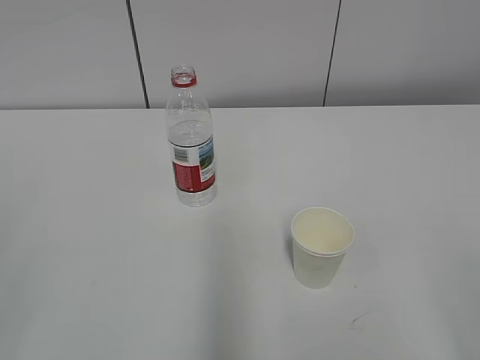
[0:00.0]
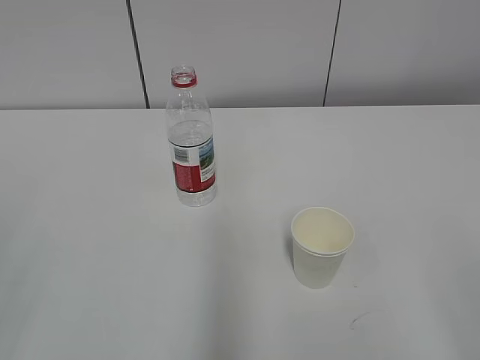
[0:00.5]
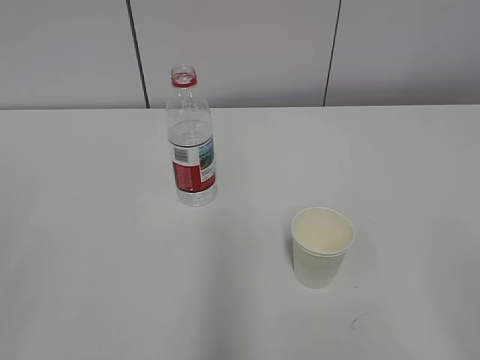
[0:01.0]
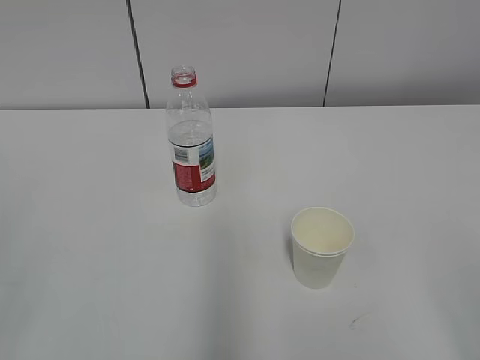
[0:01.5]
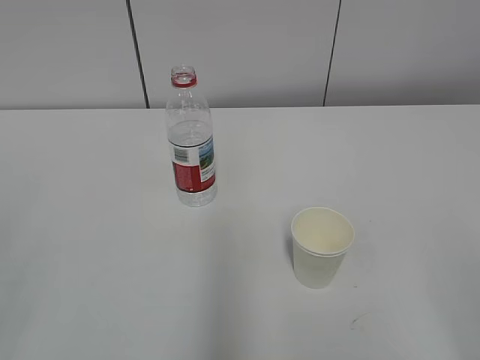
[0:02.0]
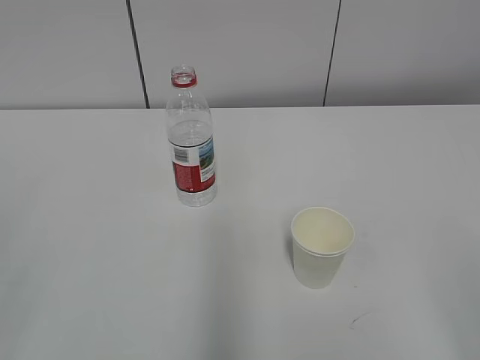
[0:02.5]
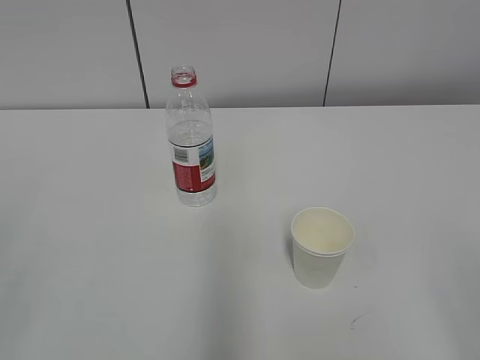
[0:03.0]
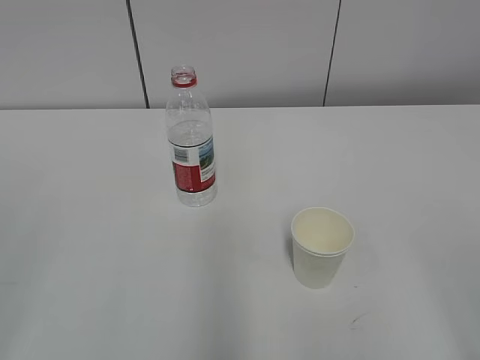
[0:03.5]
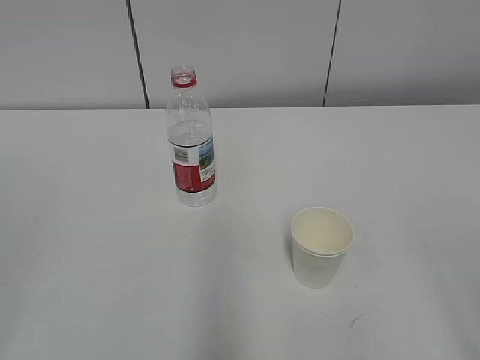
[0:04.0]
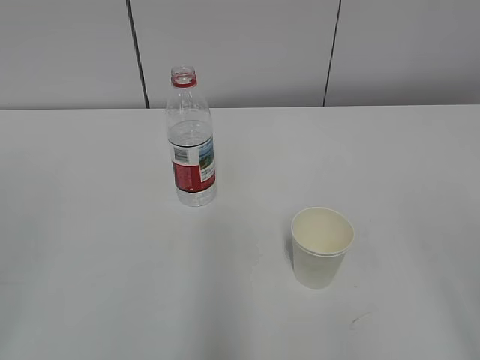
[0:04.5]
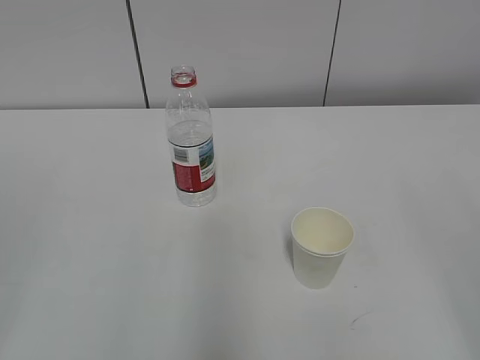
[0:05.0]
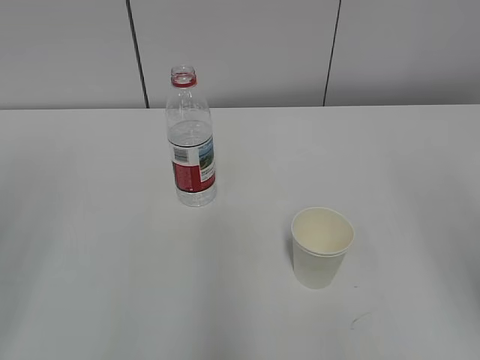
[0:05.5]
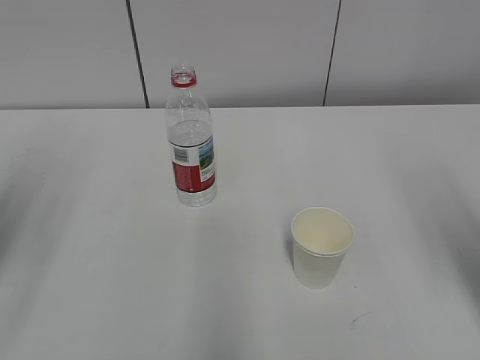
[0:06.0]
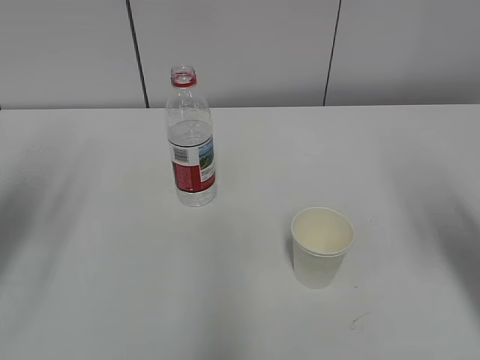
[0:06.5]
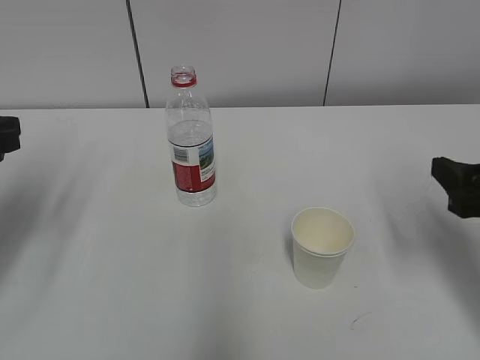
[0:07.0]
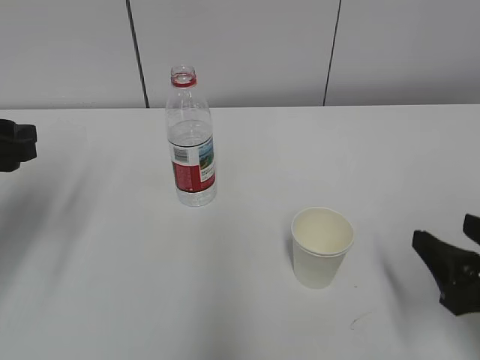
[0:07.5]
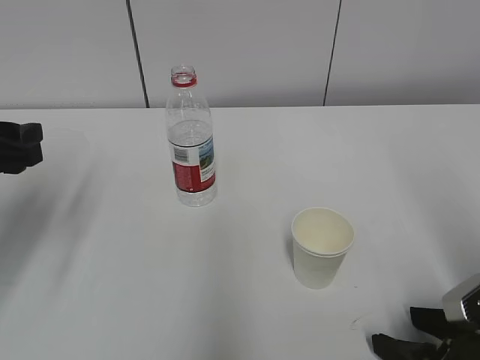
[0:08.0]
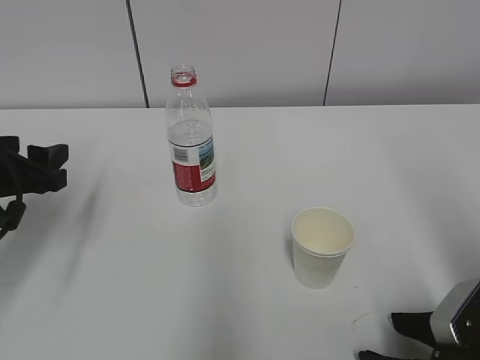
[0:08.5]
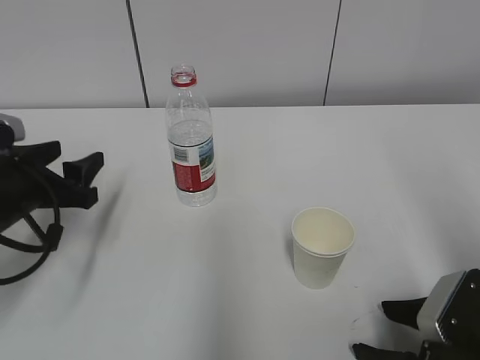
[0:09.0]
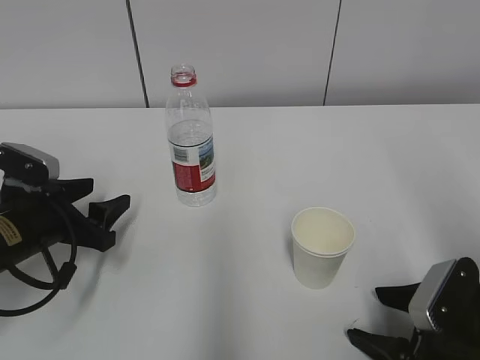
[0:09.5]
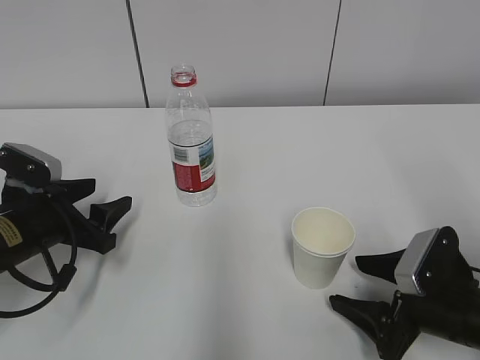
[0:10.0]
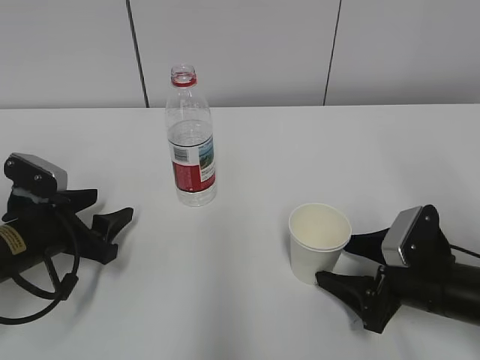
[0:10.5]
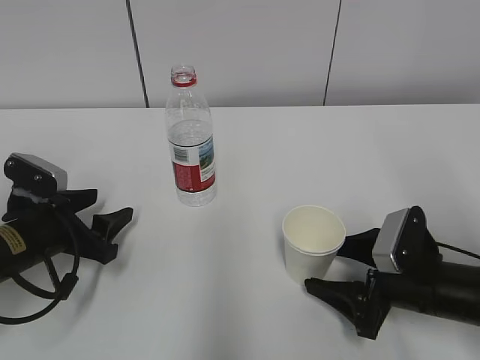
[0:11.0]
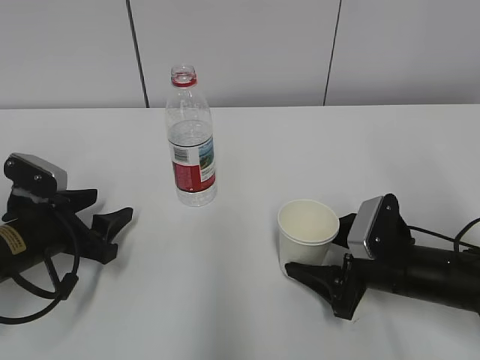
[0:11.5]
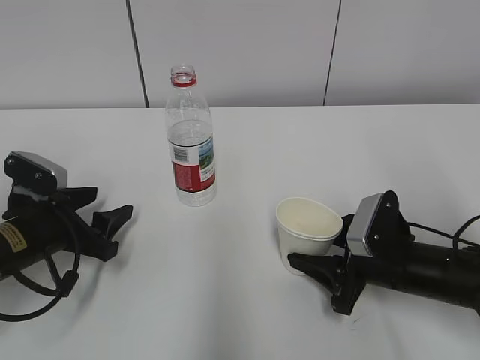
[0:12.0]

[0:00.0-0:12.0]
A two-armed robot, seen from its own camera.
Step, 0:00.0 to 0:09.5: Grab the paper cup with the right hand.
0:04.0 to 0:06.0: Both grippers move forward, roughly 15 cm.
0:06.0 to 0:08.0: The left gripper goes roughly 15 cm downward and forward. Meanwhile the right gripper moves downward, some 20 cm.
0:08.0 to 0:10.0: The right gripper moves forward, approximately 5 cm; the left gripper travels downward by some 10 cm.
0:10.0 to 0:12.0: The right gripper goes about 5 cm forward, and closes.

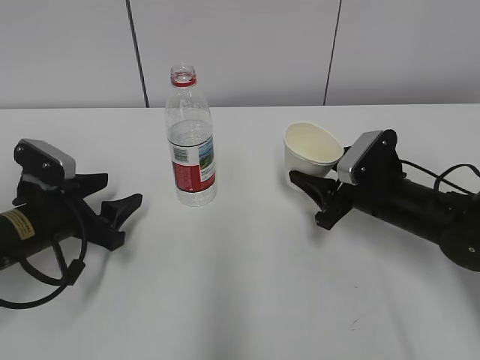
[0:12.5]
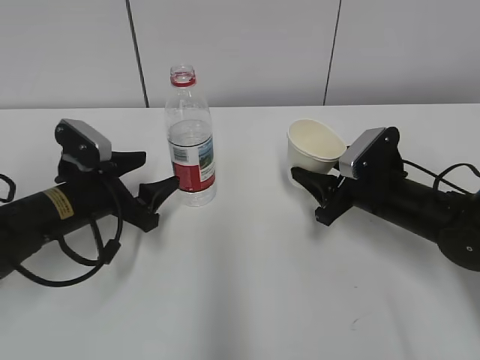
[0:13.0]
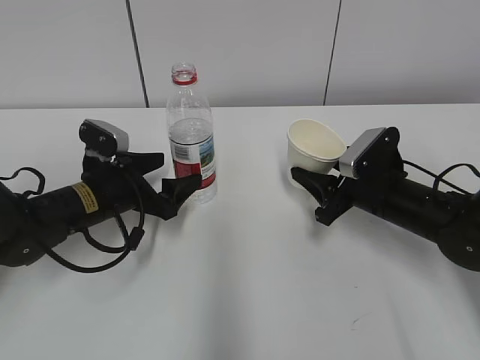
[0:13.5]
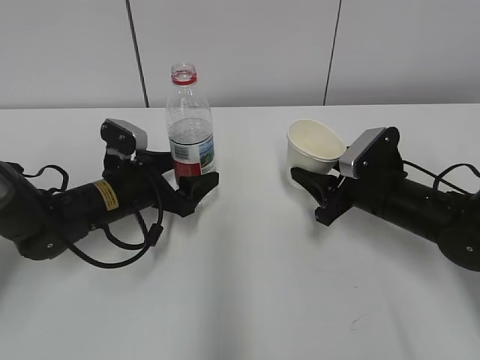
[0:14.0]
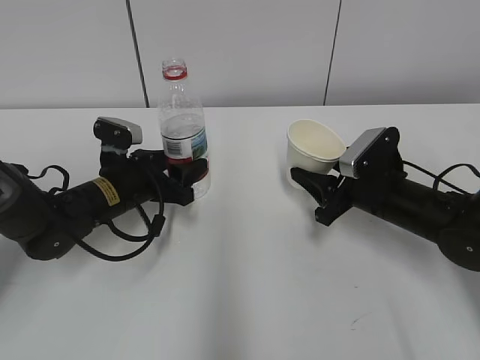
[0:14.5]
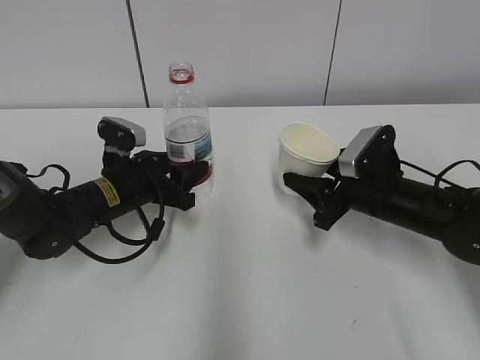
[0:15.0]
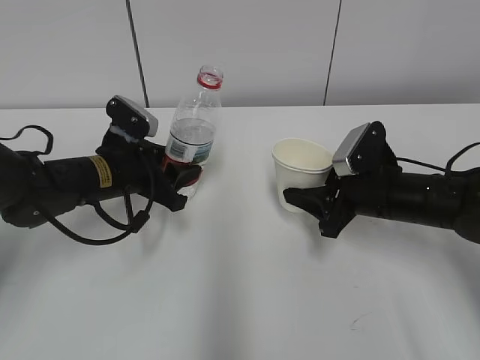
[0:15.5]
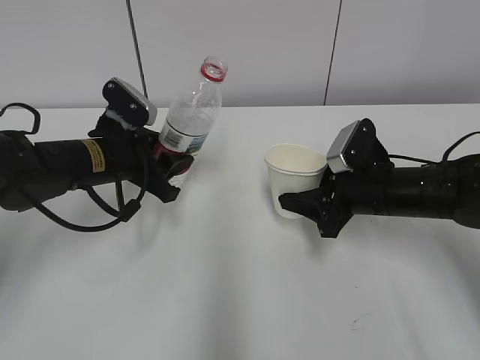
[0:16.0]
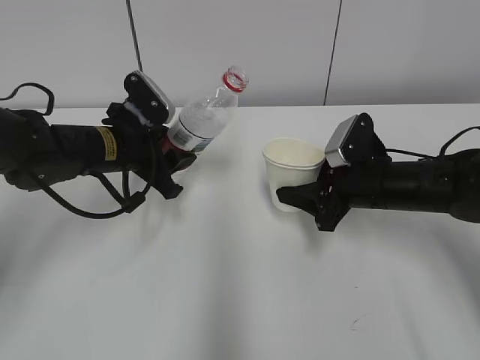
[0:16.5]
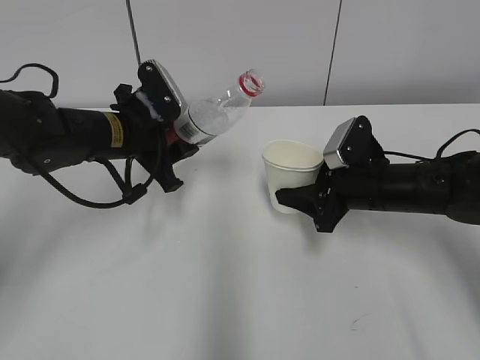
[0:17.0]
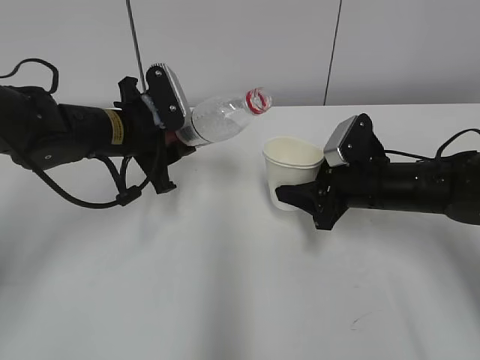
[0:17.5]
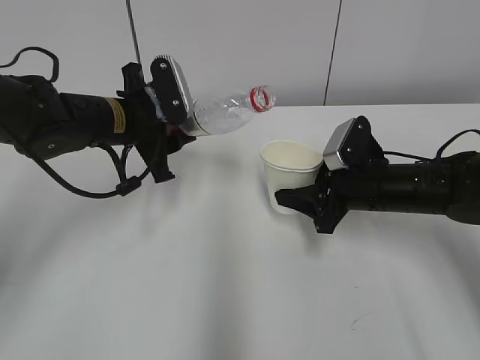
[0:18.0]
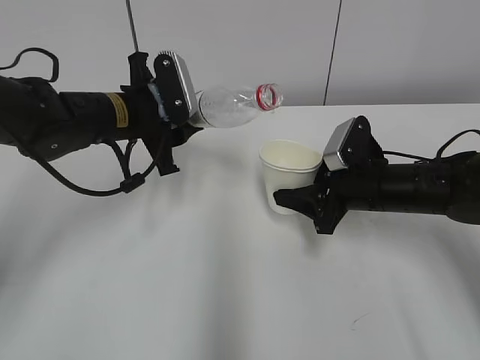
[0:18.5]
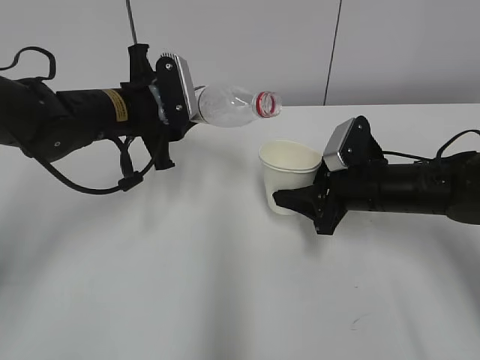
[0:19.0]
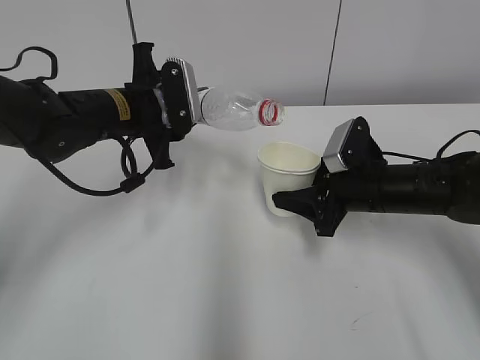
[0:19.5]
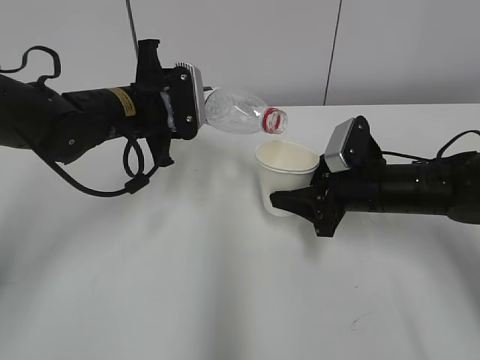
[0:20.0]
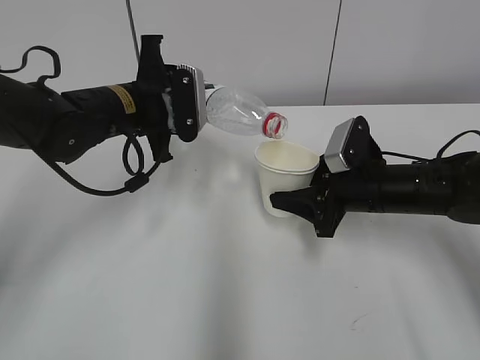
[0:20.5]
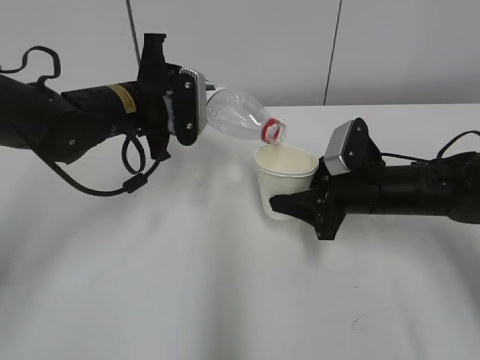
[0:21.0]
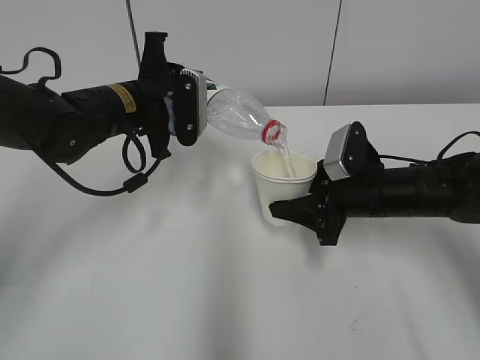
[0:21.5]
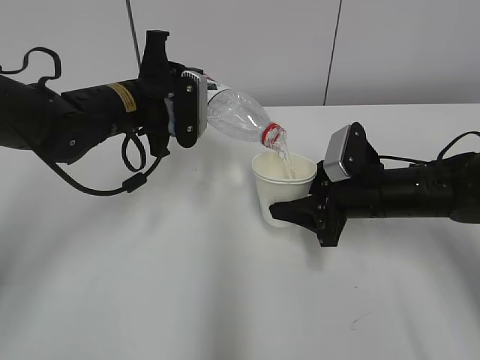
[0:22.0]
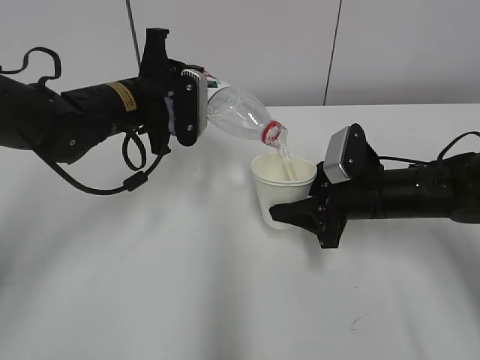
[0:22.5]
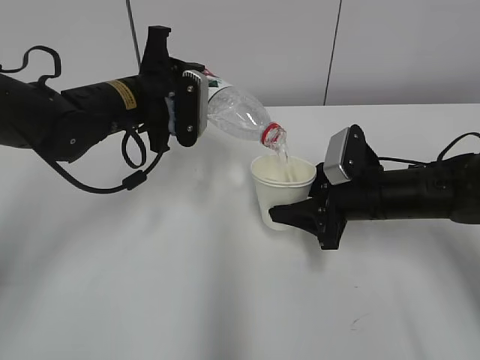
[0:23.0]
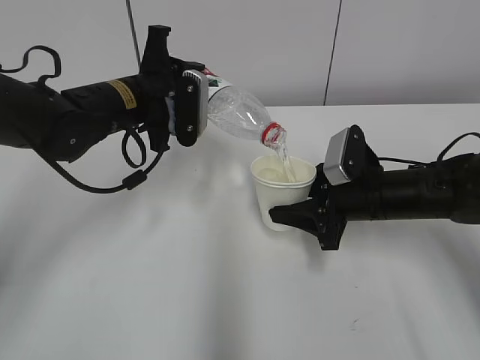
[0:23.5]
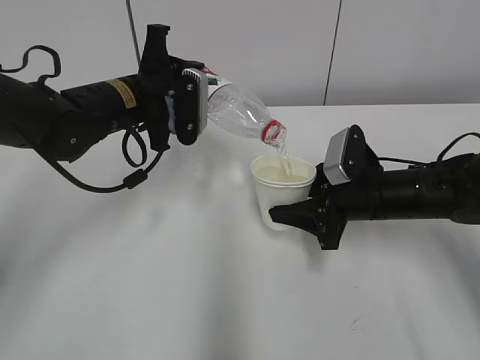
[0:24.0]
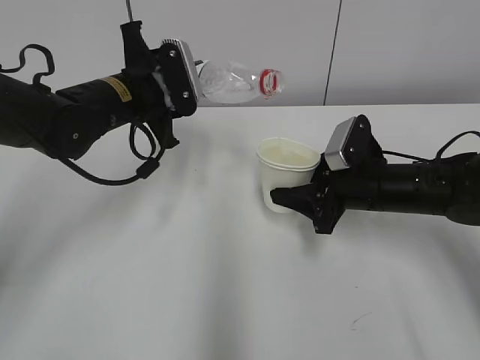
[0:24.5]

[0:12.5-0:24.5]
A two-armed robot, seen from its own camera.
Step, 0:13.0 to 0:17.0: Lift the paper cup with the right hand.
Step, 0:17.5 to 0:20.0: Fill water with the right hand.
Step, 0:17.5 to 0:20.0: Pour water with the left hand.
Step, 0:20.5 to 0:21.0: Collect water with the left hand.
Step, 0:21.5 to 0:23.5: Place the paper cup with the right hand.
0:12.5 to 0:14.5: The left gripper goes about 10 cm to the right and forward, and opens, then closes again.
0:14.5 to 0:16.5: The left gripper shifts some 5 cm upward.
0:20.5 to 0:24.5: The grippers move only a little.

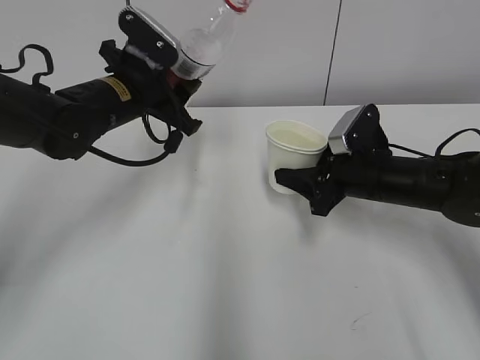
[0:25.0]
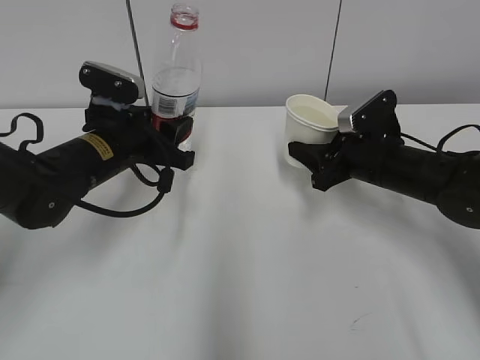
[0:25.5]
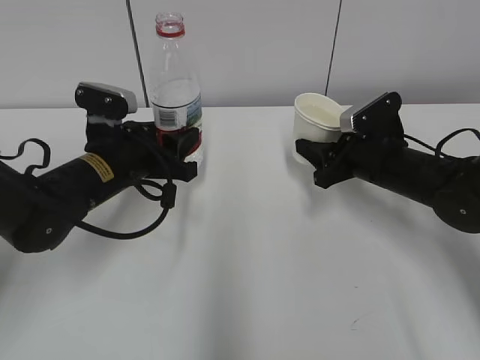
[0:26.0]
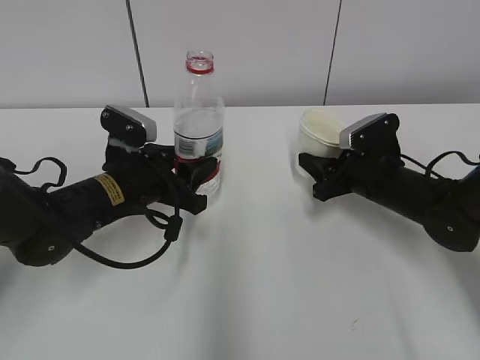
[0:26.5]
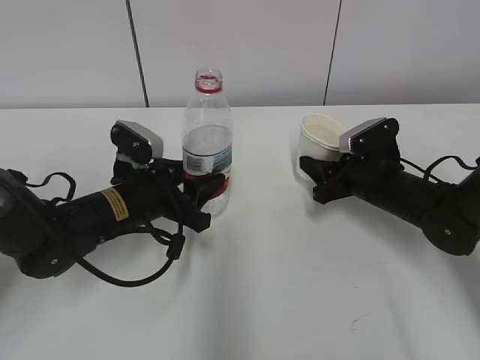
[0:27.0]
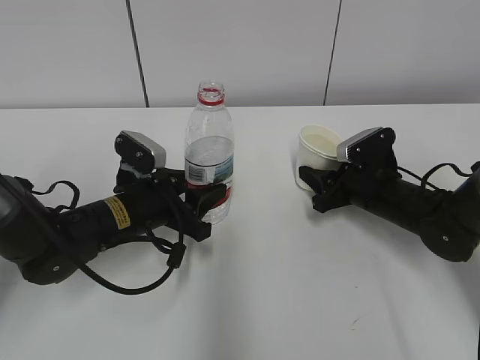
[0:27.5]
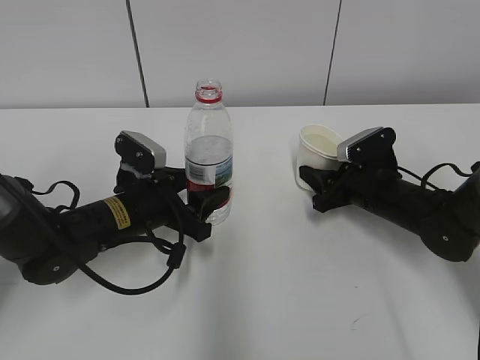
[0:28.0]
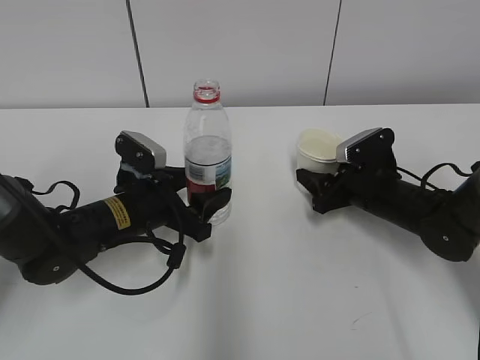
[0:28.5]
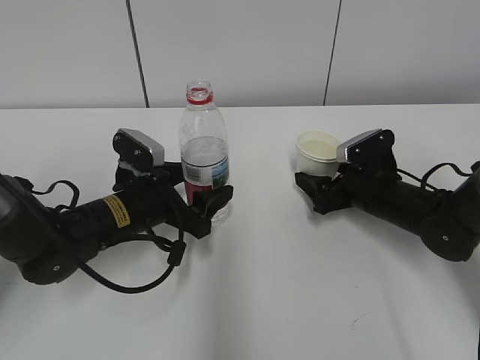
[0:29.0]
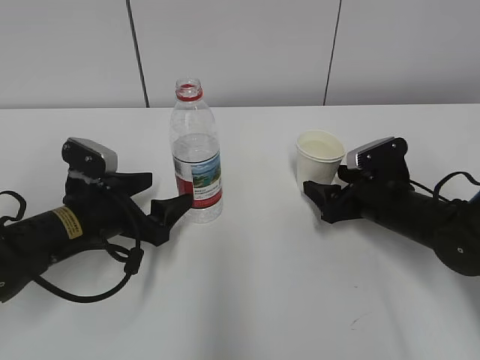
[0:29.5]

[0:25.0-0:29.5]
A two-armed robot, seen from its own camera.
0:25.0 to 0:27.0: The left gripper goes roughly 15 cm downward and backward.
0:27.0 to 0:29.5: The left gripper shifts by roughly 5 cm, and opens up. Meanwhile the right gripper opens its fingers.
